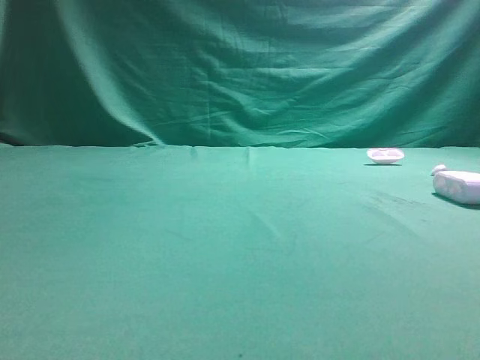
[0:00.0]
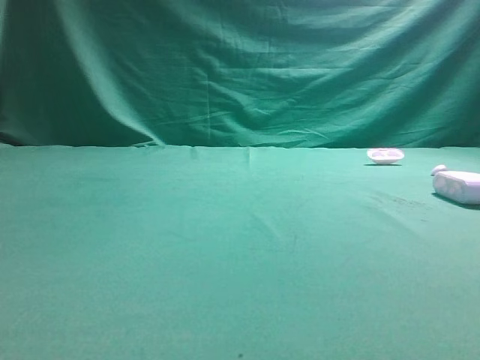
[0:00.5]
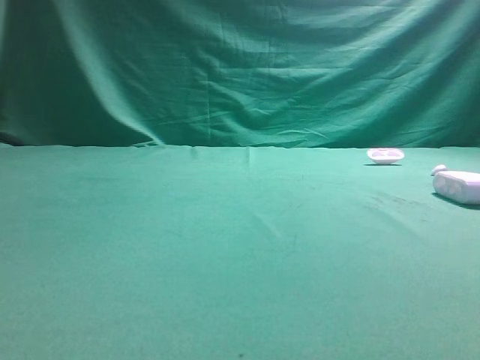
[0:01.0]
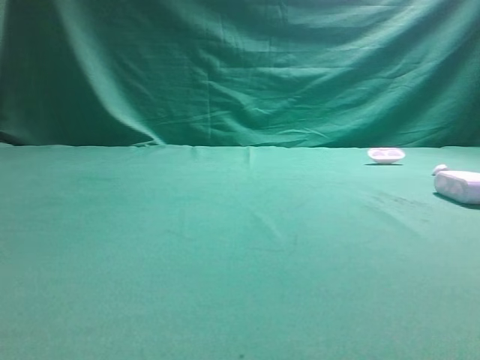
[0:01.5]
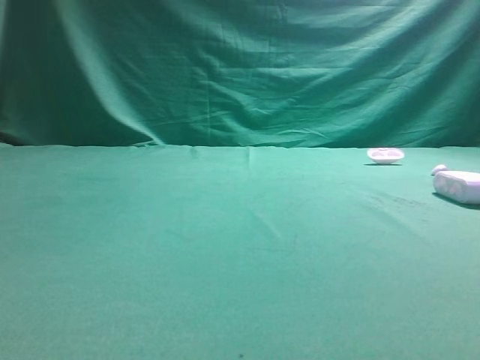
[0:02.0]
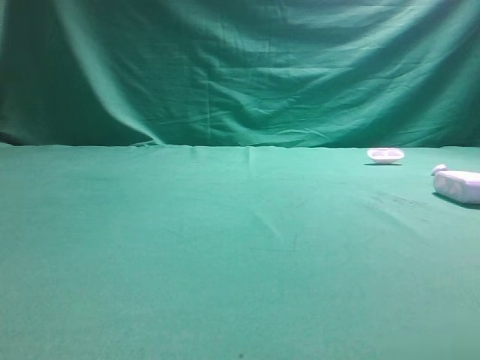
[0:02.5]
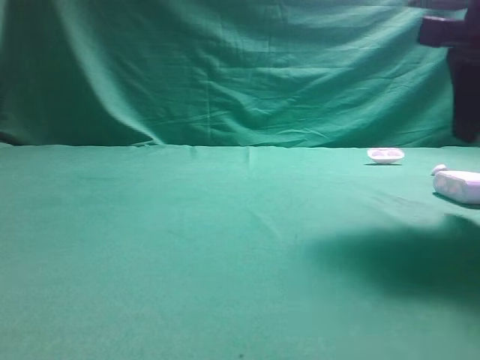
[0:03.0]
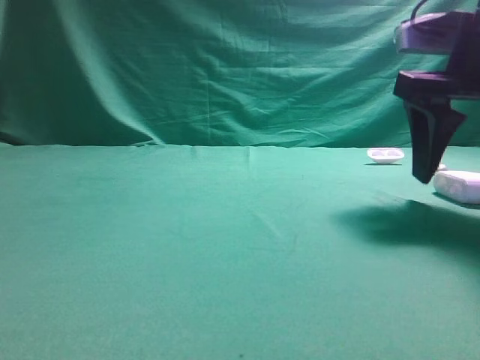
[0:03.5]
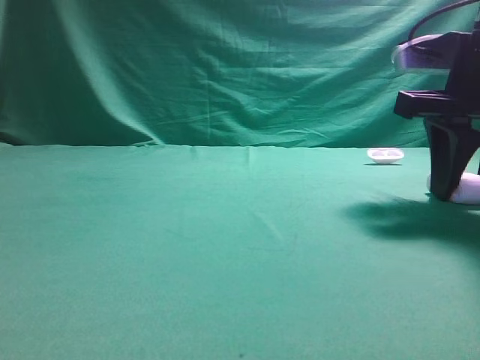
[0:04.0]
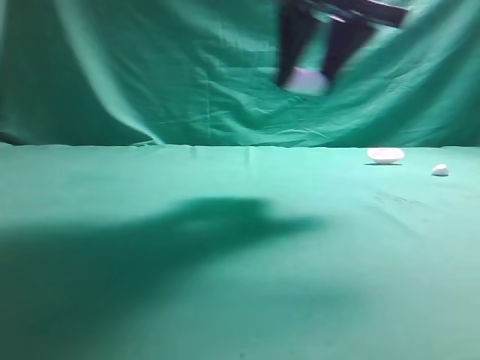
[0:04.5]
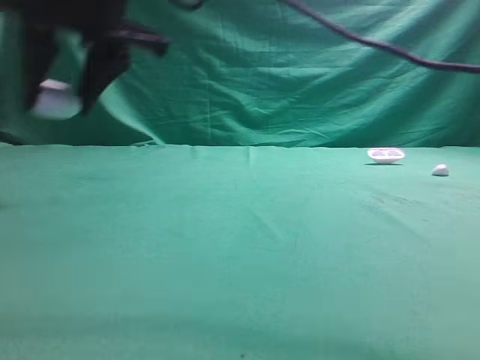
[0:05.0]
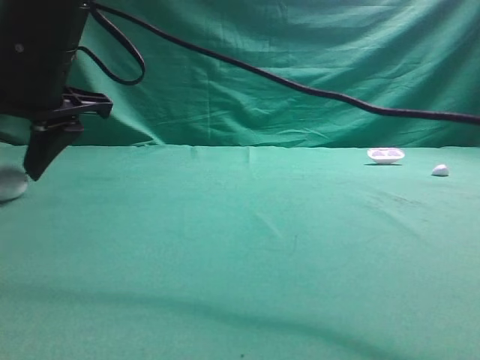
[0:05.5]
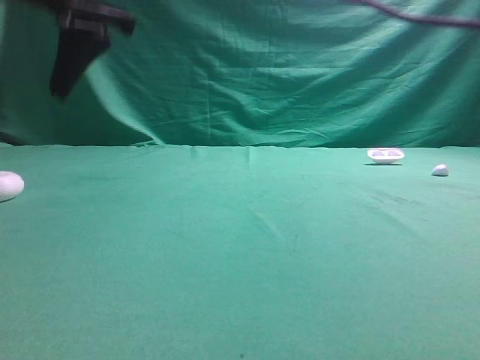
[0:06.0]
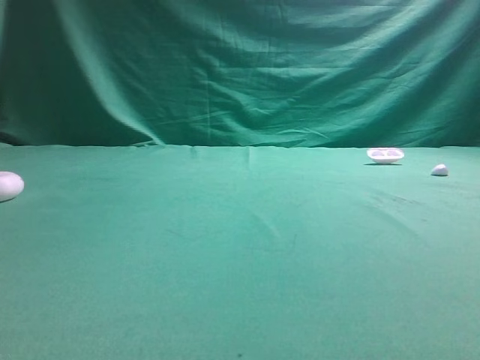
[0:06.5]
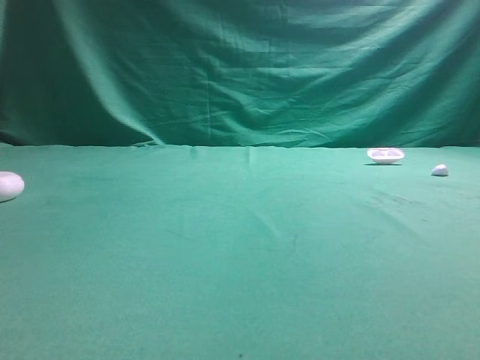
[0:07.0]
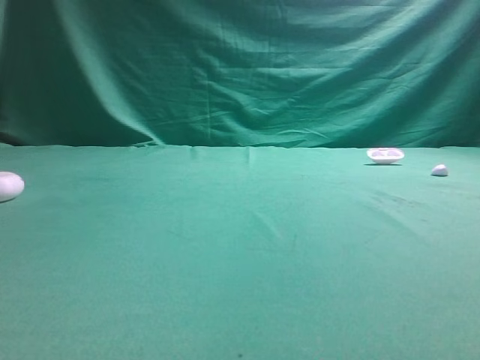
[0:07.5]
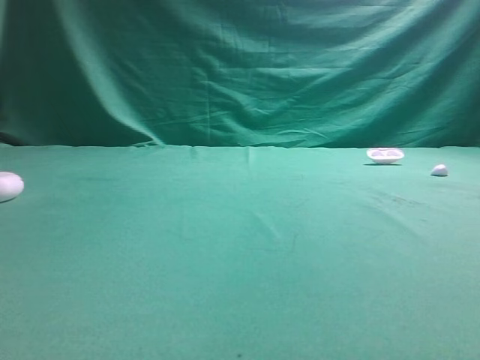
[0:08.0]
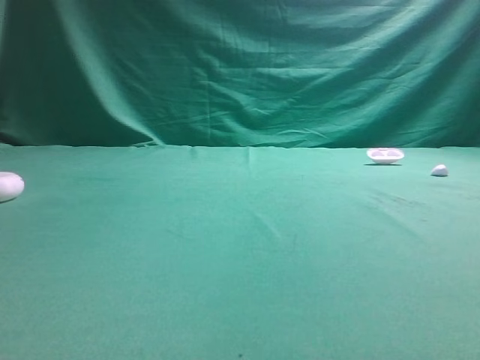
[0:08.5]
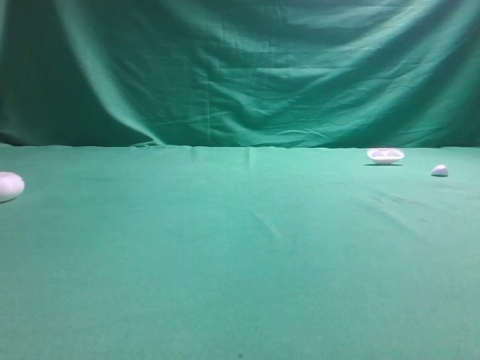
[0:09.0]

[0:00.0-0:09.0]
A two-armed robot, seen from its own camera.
Step, 0:00.0 to 0:04.0: Grasp the Bluetooth earphone case.
Step, 0:04.5 to 0:05.5: Place bluetooth earphone case on the left side of the table.

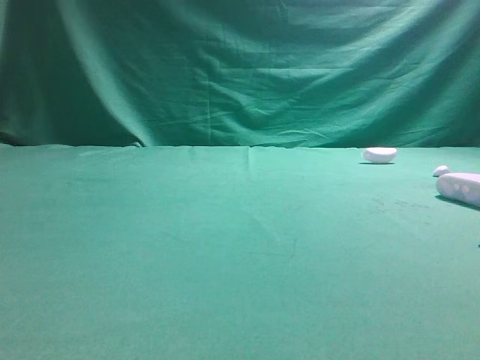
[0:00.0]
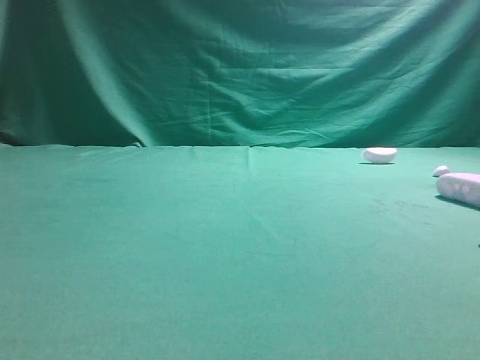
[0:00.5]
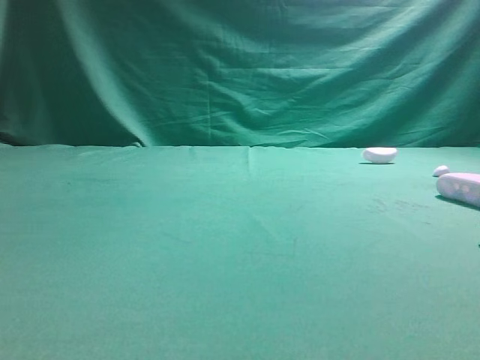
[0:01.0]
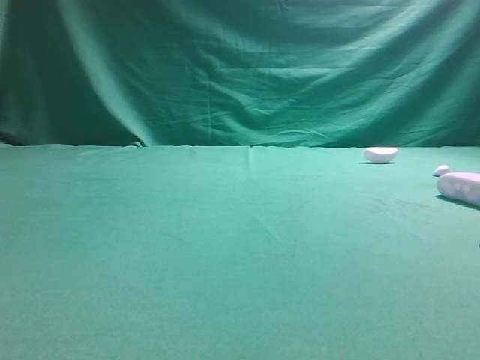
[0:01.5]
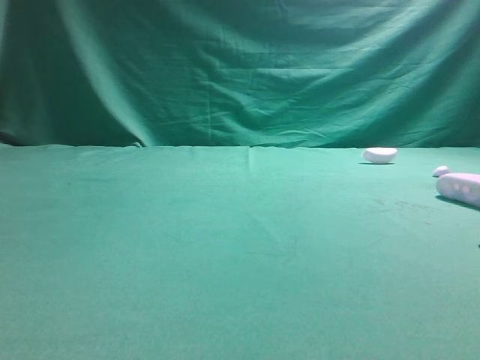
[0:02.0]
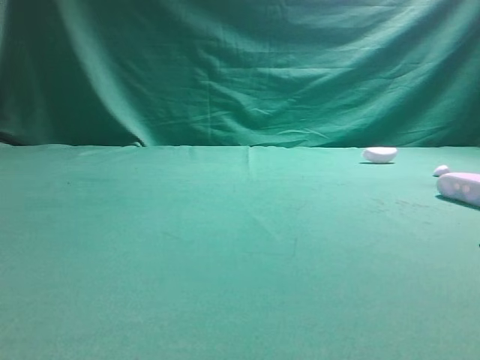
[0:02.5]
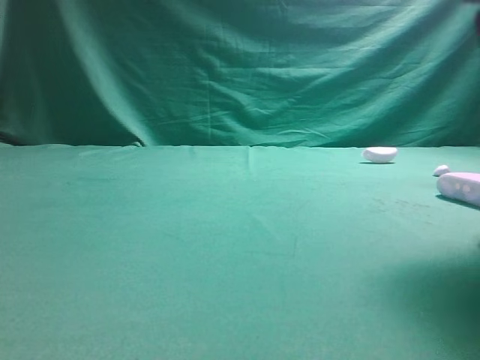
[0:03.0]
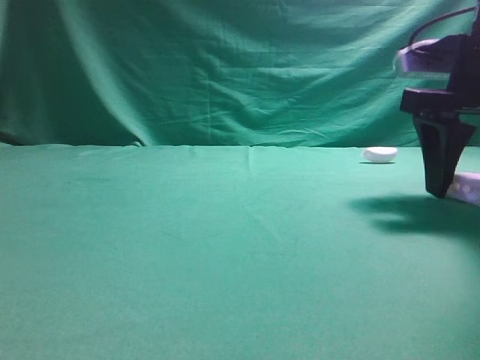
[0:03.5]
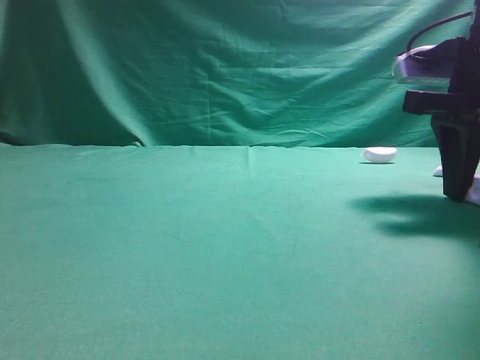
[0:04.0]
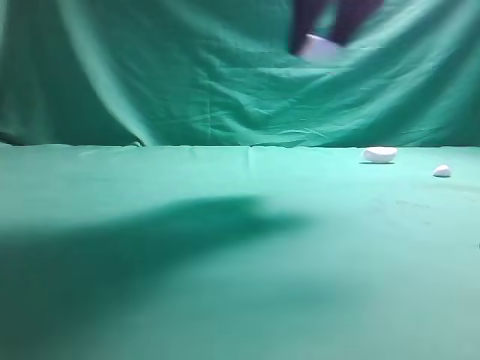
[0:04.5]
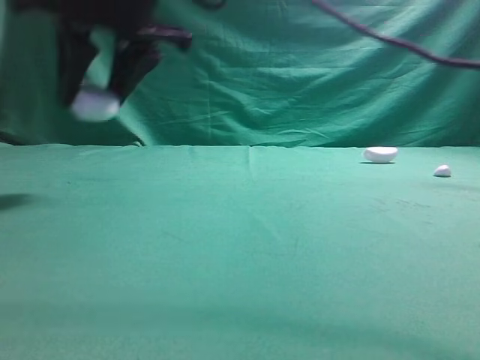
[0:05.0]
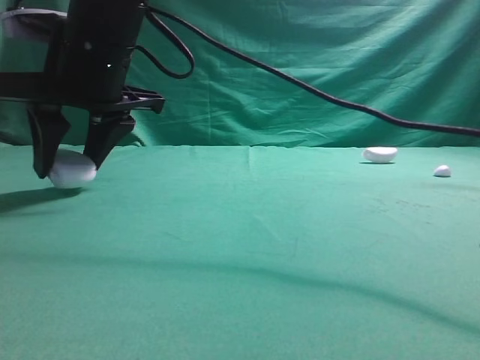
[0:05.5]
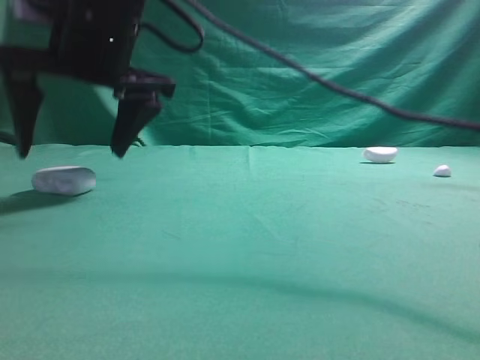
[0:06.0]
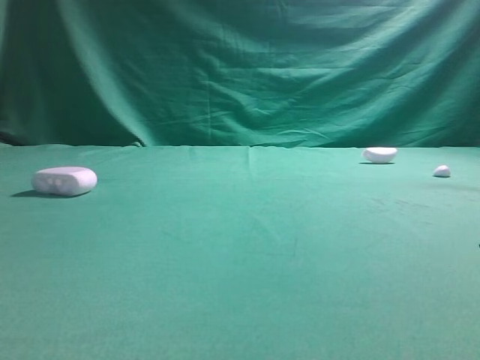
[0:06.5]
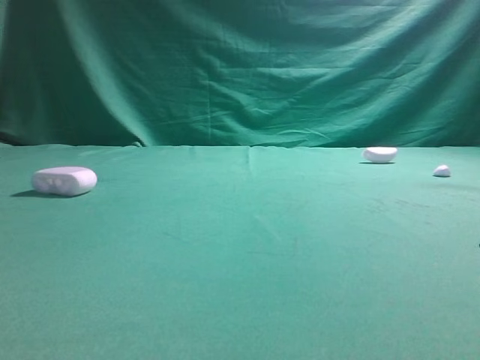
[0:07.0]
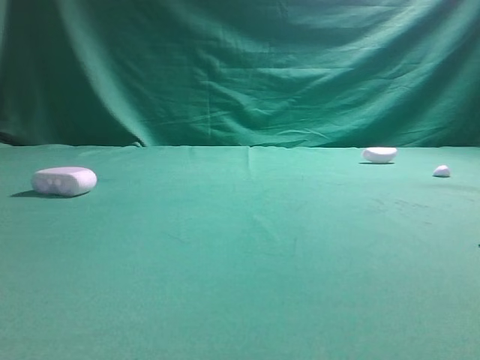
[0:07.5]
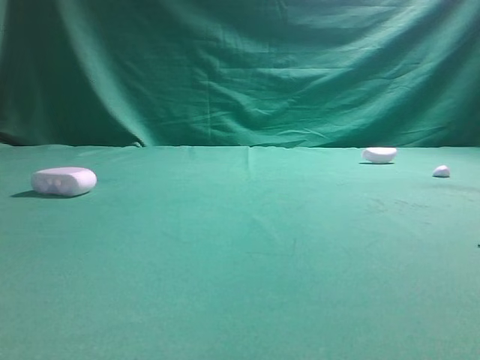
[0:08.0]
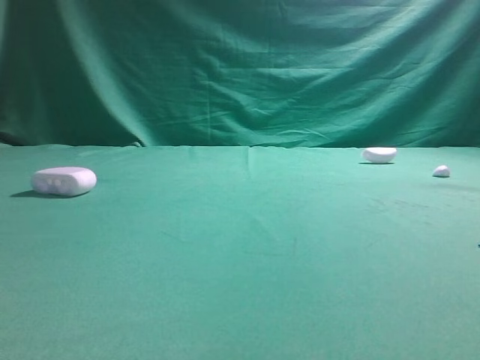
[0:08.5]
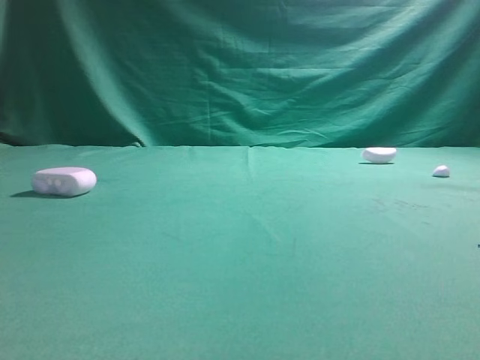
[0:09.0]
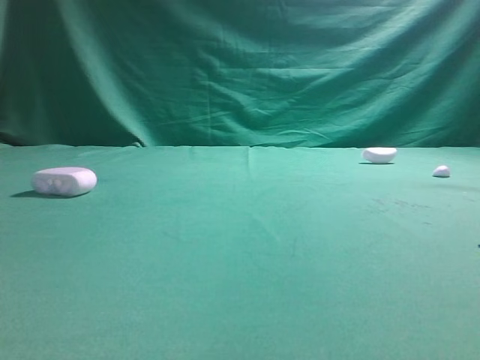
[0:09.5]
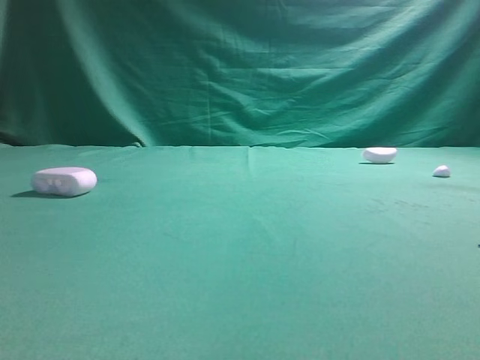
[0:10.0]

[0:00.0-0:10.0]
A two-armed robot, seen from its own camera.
Step, 0:00.0 to 0:04.0: Grasp the Bluetooth earphone case.
Step, 0:04.5 to 0:06.0: Place bluetooth earphone case on the left side of the table.

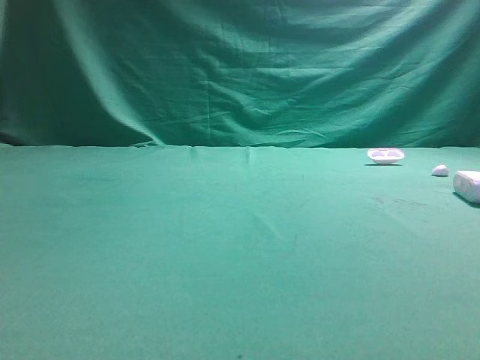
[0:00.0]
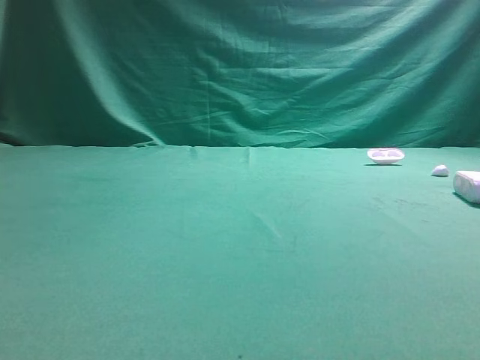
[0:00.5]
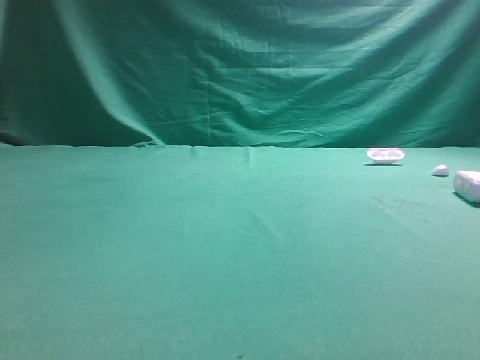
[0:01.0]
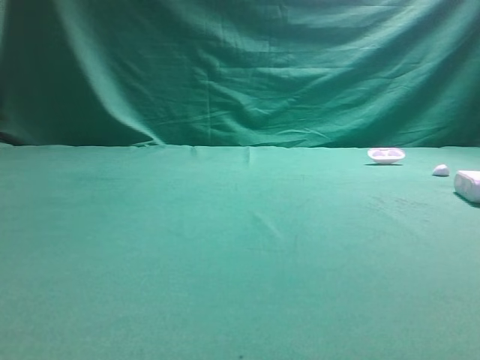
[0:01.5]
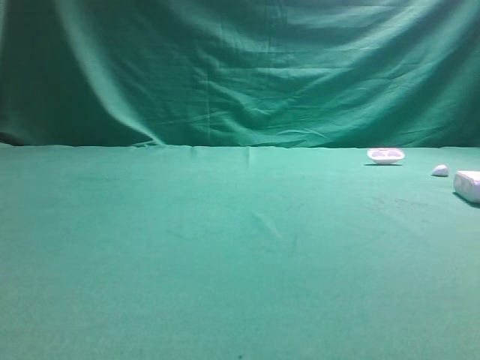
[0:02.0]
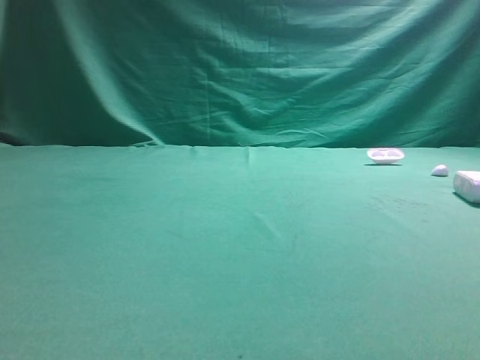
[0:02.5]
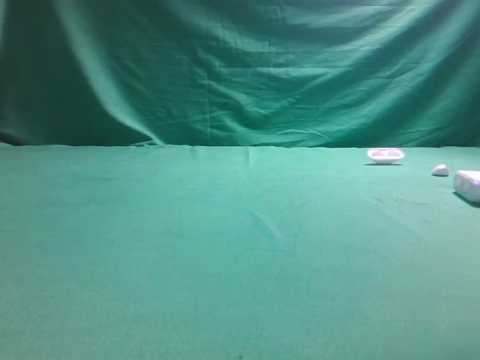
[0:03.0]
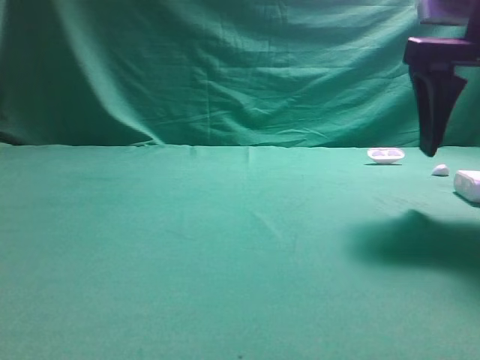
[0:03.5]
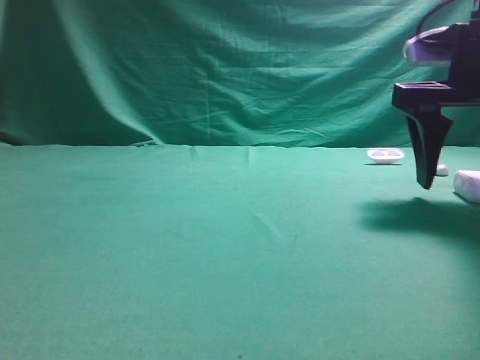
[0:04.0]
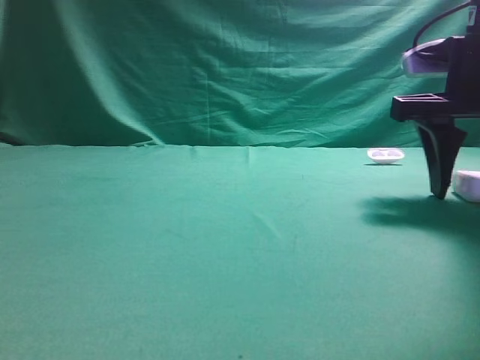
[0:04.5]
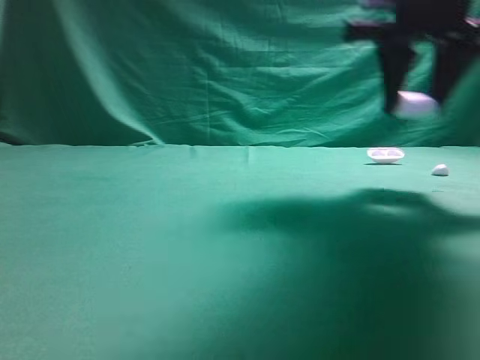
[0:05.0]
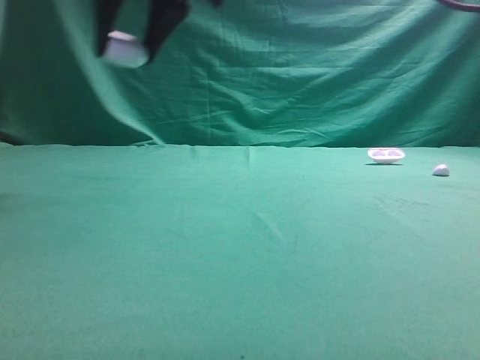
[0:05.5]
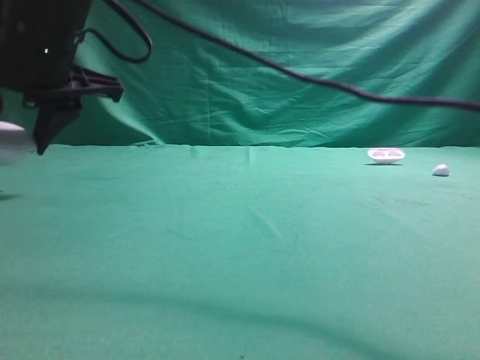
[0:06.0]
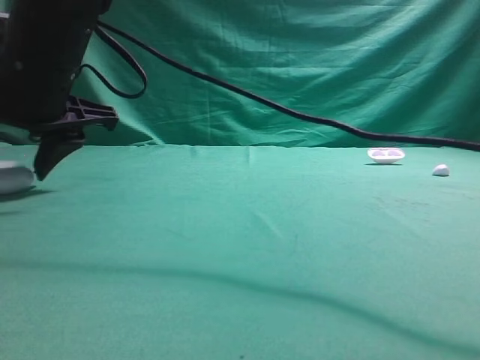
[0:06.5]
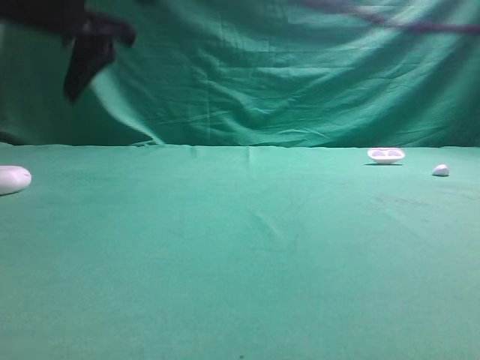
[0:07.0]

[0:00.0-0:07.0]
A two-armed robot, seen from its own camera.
Step, 0:00.0 to 0:05.0: Grasp the Bluetooth earphone case.
Step, 0:05.5 to 0:07.0: Place bluetooth earphone case on the left side of the table.
